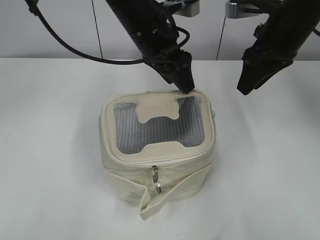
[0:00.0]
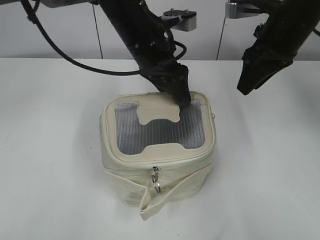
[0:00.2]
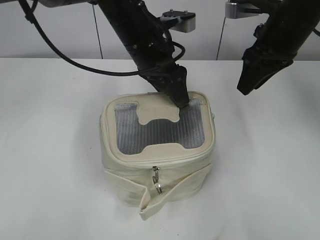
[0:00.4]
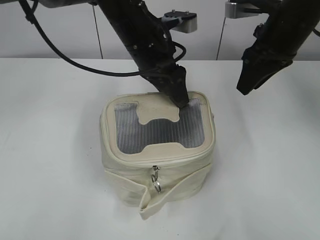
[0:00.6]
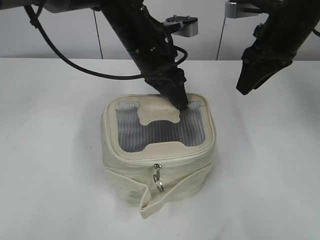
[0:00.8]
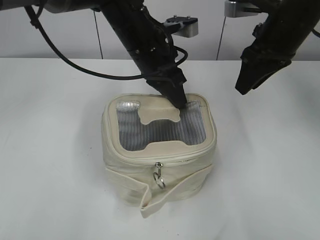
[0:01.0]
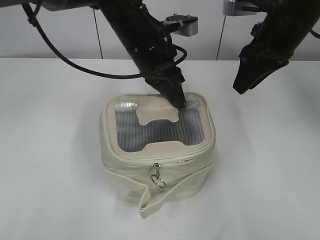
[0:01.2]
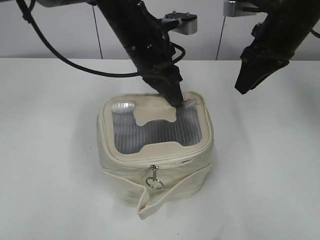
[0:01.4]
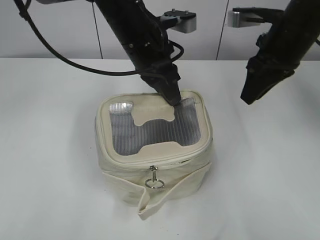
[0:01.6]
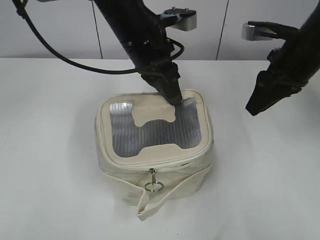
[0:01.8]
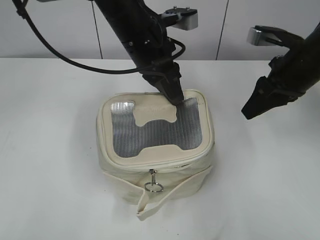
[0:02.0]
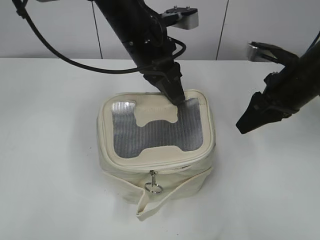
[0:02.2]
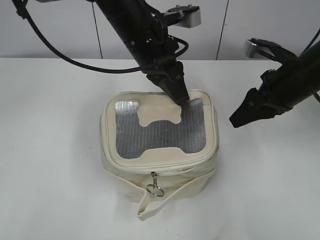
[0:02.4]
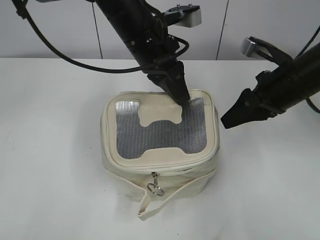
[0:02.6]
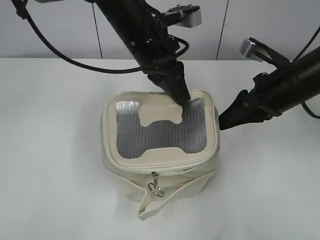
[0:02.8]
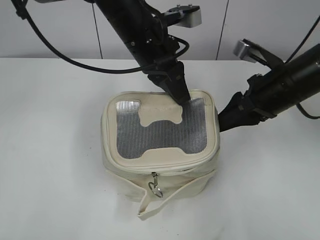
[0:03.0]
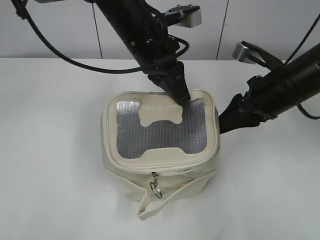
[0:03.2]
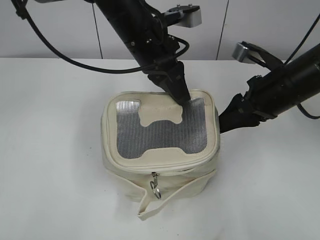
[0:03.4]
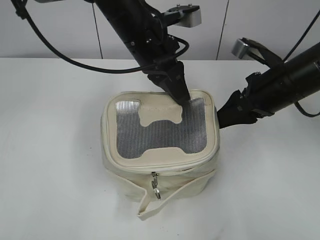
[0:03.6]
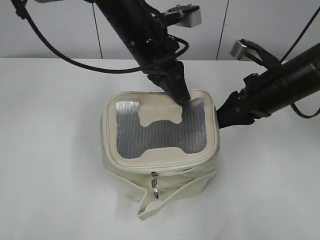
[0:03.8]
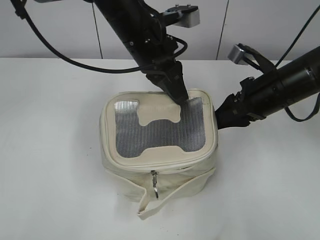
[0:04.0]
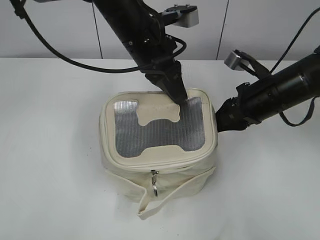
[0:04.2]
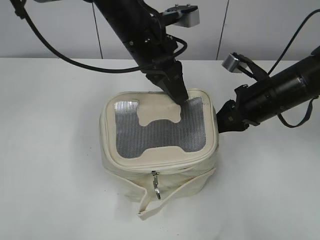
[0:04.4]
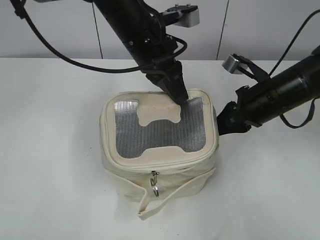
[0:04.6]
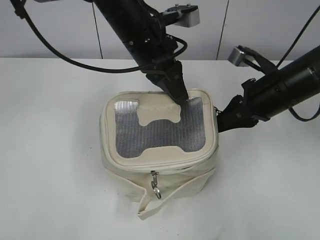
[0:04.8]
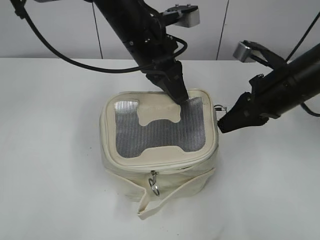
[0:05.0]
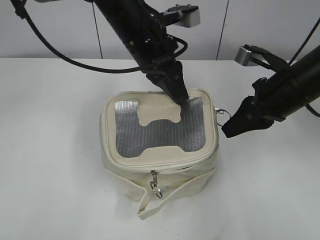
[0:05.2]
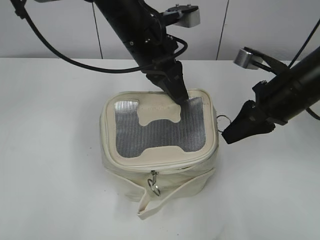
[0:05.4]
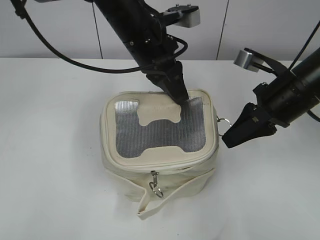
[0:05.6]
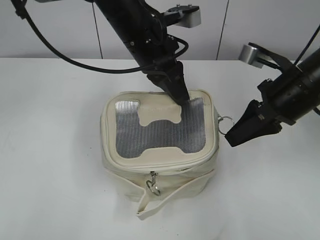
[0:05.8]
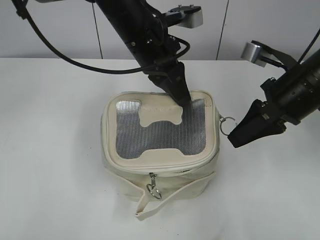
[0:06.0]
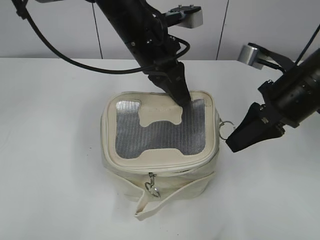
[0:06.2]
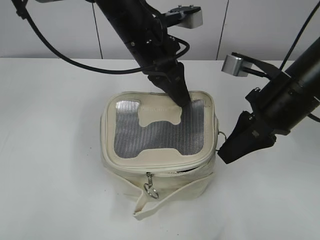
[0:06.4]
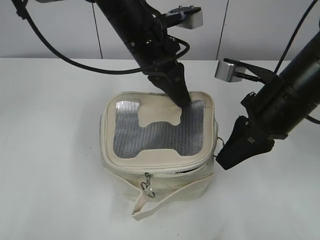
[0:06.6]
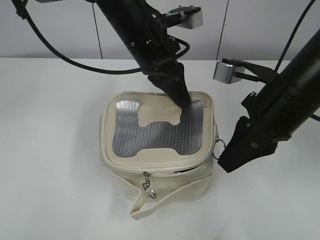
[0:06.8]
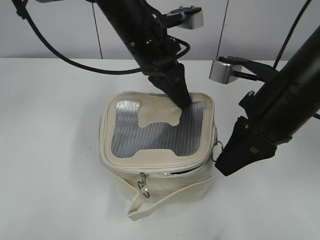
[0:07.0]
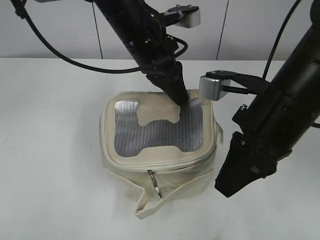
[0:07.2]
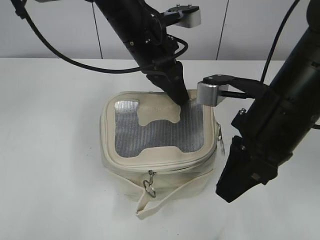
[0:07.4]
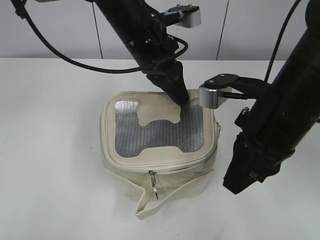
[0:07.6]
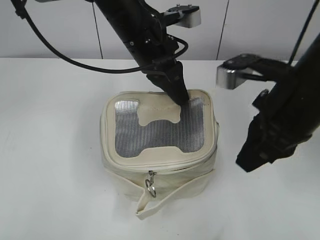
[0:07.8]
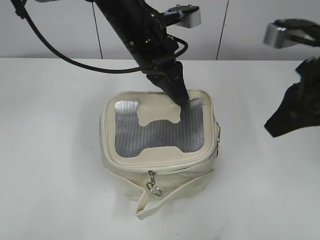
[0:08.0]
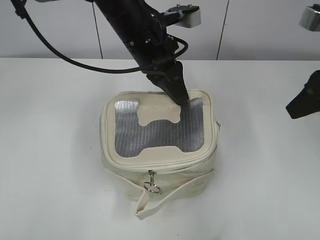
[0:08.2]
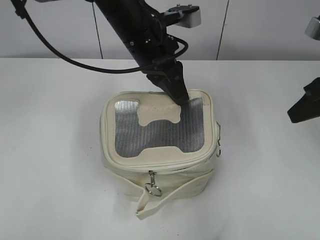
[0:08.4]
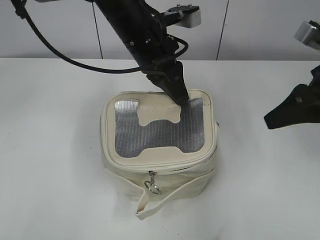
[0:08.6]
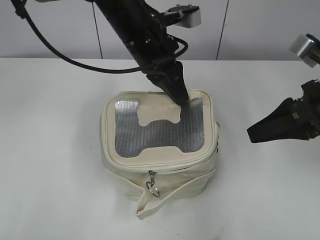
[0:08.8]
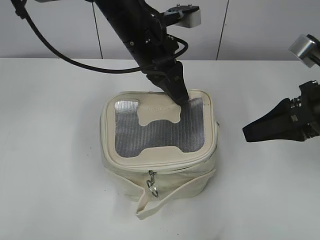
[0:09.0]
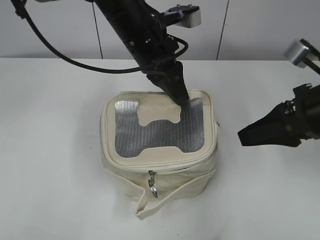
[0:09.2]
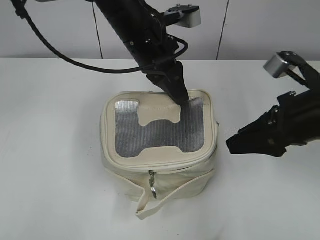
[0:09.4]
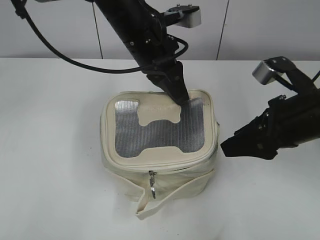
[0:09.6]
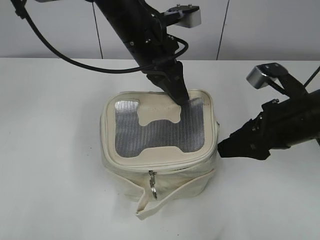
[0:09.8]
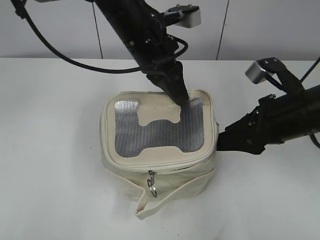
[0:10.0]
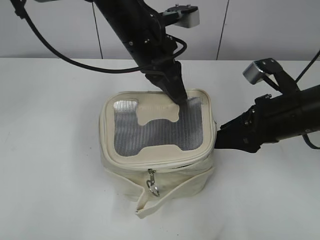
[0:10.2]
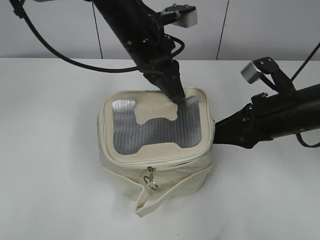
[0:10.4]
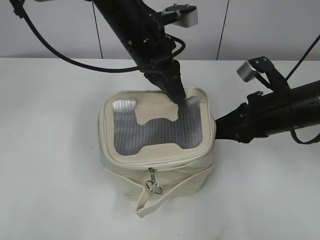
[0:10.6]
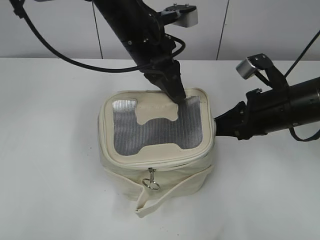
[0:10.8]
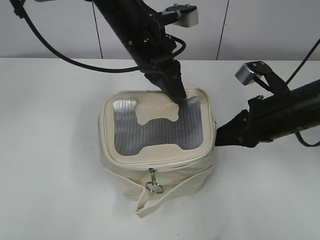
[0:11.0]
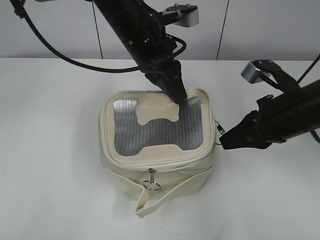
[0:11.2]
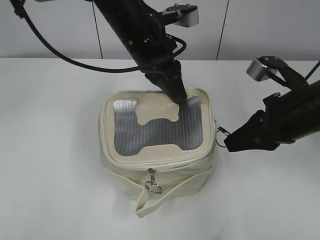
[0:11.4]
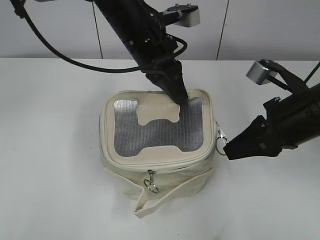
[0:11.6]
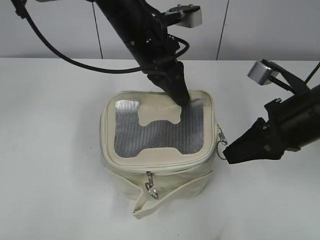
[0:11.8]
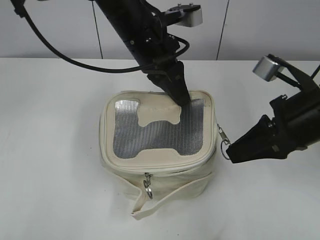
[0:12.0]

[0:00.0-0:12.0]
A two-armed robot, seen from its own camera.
0:00.0 to 0:01.6: The left gripper closes its fingers.
0:01.6 to 0:03.0: The right gripper goes some 5 cm downward.
0:03.0 to 0:04.4: The right gripper closes its fingers.
0:04.4 to 0:06.0: The right gripper moves upward, approximately 5 cm.
0:06.0 to 0:07.6: The right gripper shifts approximately 10 cm backward and to the left.
0:07.6 to 0:09.0: The right gripper shifts approximately 10 cm to the right, and opens up.
0:09.0 to 0:10.4: The right gripper goes roughly 5 cm downward.
0:10.4 to 0:12.0: The right gripper ends up some 5 cm from where it was, and closes its fingers.

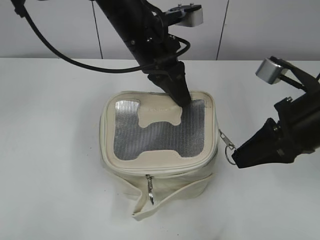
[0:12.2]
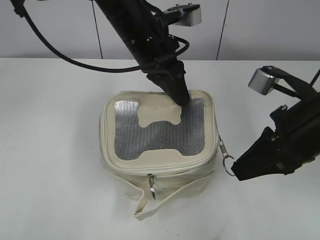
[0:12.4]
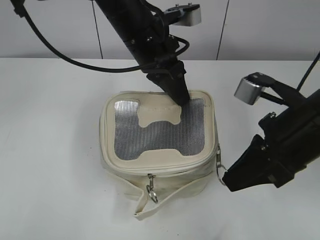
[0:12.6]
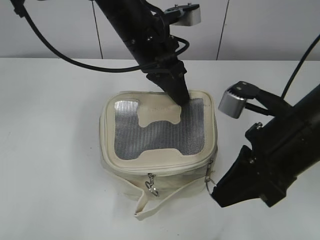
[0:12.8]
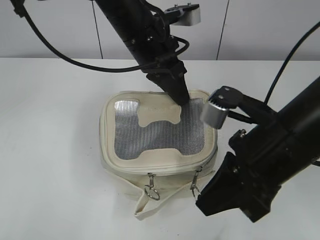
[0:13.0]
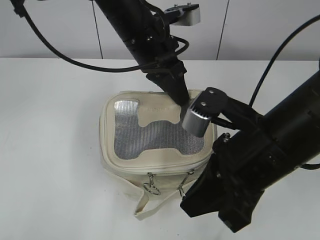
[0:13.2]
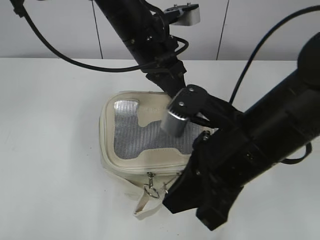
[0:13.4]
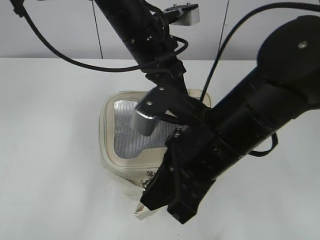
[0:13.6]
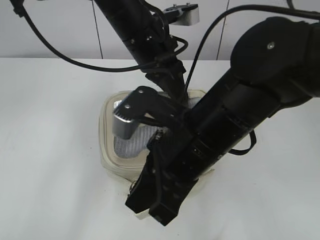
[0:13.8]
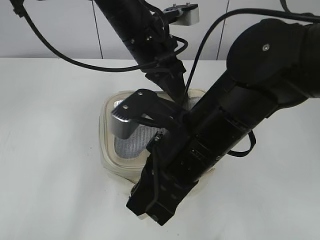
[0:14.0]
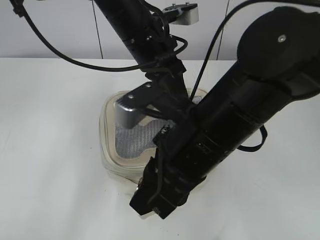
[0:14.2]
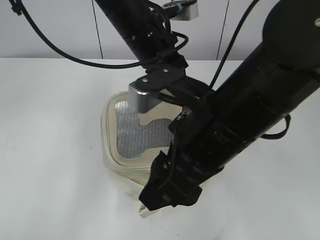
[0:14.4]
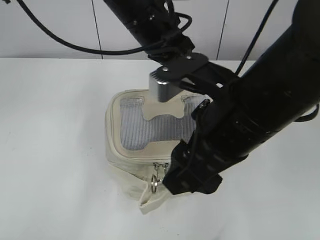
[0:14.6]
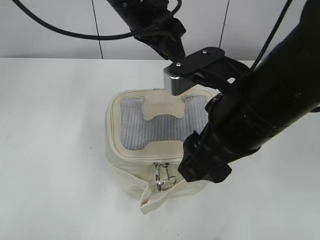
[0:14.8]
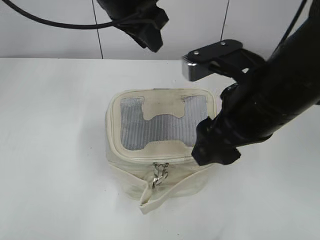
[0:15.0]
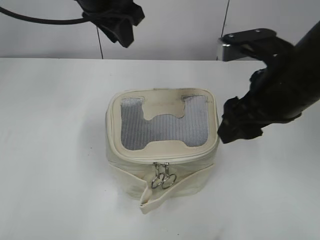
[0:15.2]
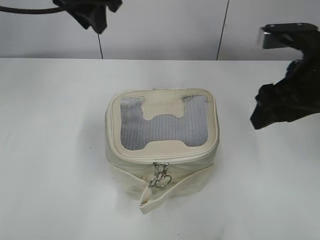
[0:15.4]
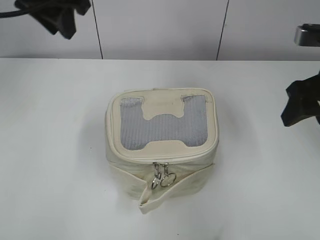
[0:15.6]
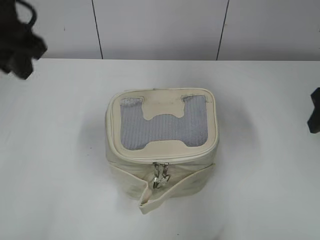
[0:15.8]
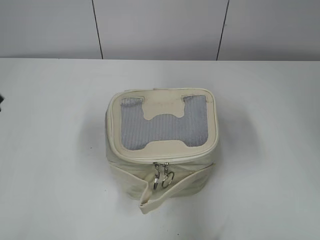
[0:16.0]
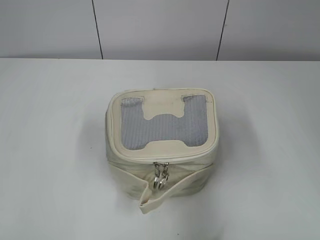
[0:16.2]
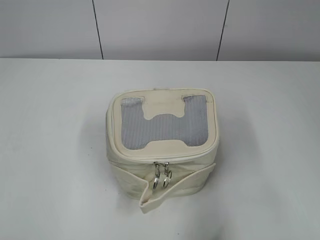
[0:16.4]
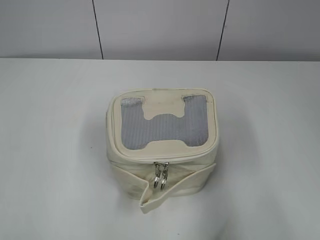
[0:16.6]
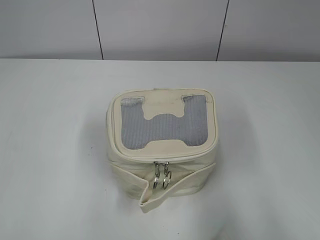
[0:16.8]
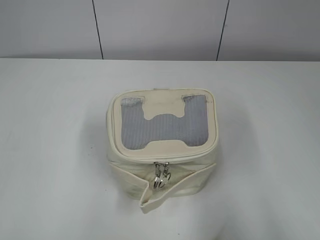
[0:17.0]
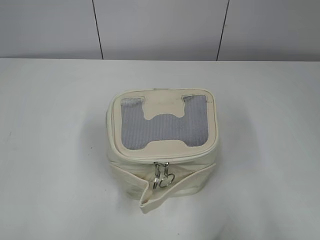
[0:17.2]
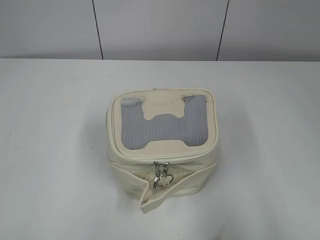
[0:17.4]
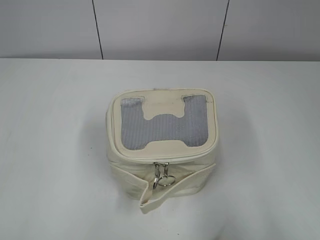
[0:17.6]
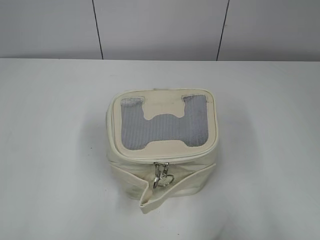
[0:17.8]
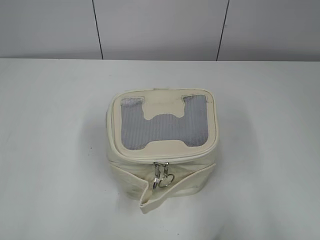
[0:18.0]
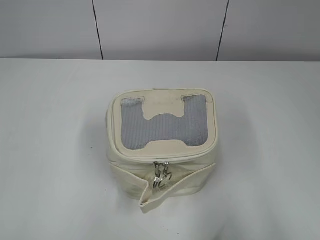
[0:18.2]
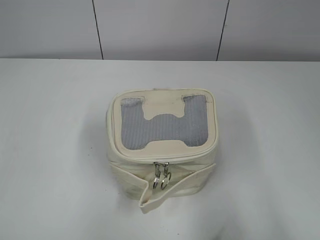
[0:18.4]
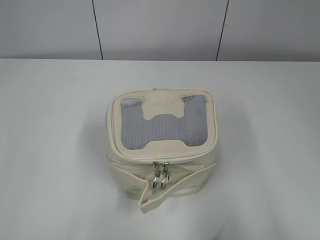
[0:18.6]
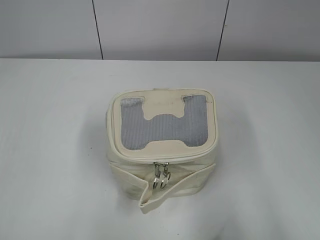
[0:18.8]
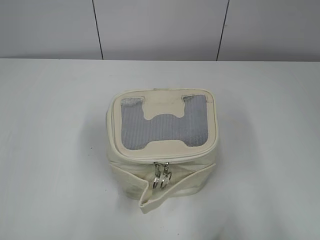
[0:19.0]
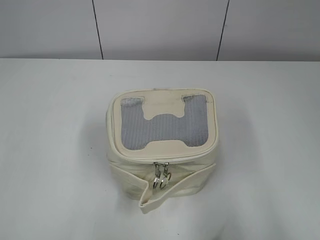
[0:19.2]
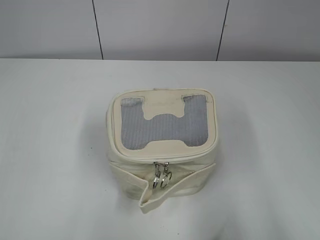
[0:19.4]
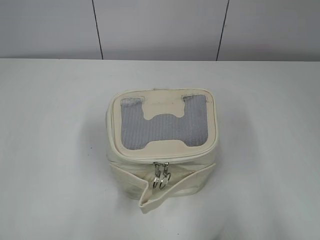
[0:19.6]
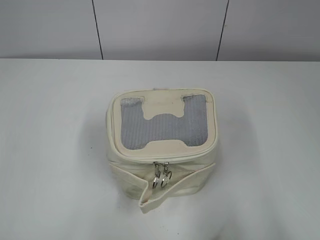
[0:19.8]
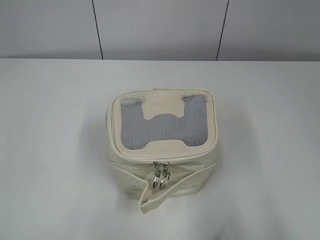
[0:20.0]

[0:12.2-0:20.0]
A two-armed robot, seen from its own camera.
Step, 0:12.2 to 0:14.4: Zip up the bag with your right hand.
0:12.2 to 0:13.8: The right gripper is displaced to the left by about 15 cm.
0:13.8 to 0:15.4: The left gripper travels upward and to the left by roughly 15 cm, and opens, while the right gripper shifts some 15 cm to the right and forward, and opens.
0:15.4 to 0:16.8: The right gripper is displaced backward and to the right by some 25 cm. The left gripper is displaced backward and to the left by about 40 cm.

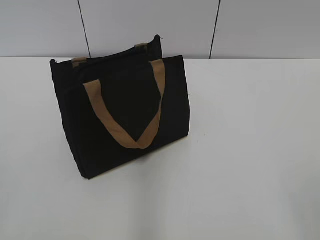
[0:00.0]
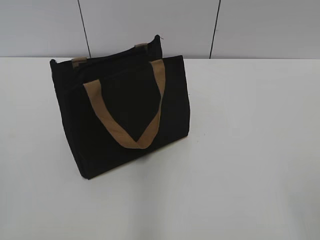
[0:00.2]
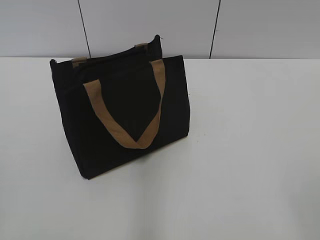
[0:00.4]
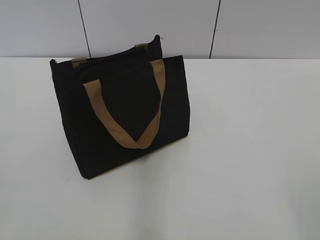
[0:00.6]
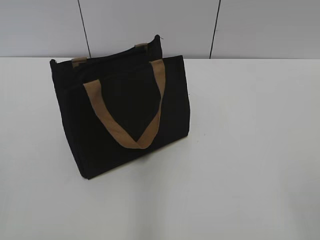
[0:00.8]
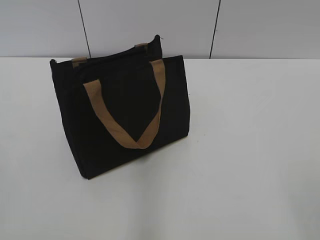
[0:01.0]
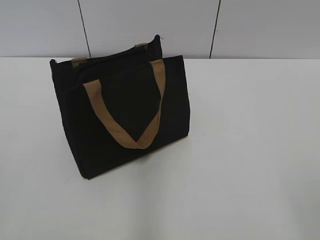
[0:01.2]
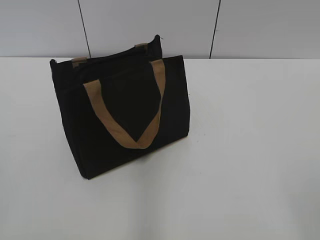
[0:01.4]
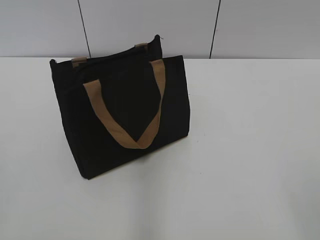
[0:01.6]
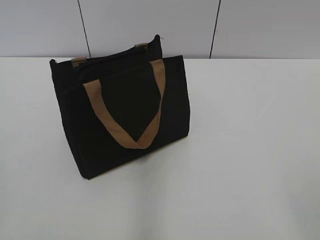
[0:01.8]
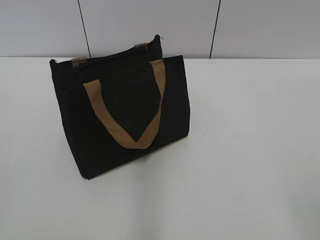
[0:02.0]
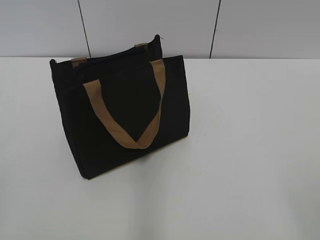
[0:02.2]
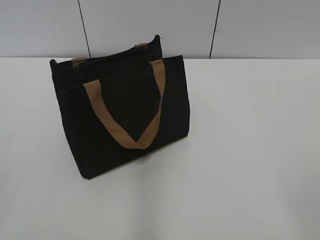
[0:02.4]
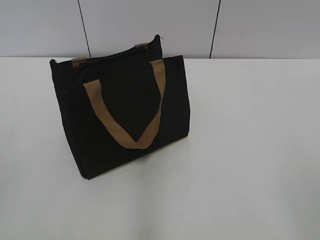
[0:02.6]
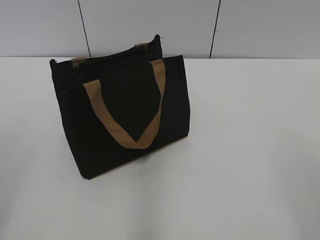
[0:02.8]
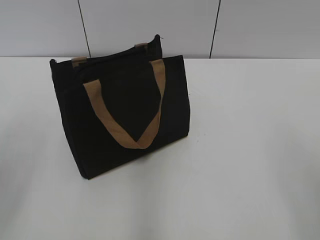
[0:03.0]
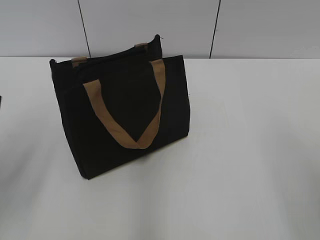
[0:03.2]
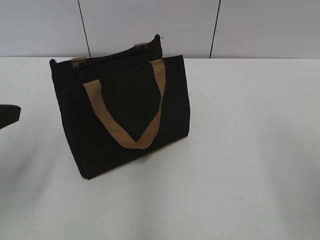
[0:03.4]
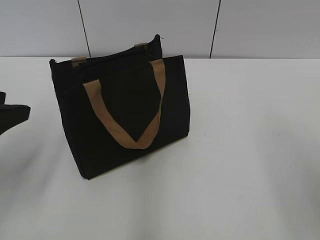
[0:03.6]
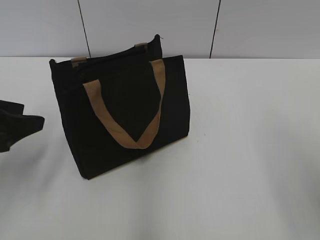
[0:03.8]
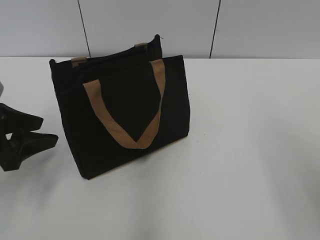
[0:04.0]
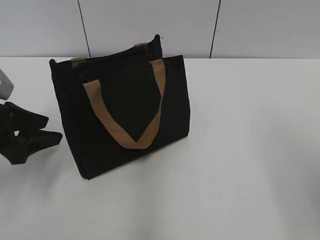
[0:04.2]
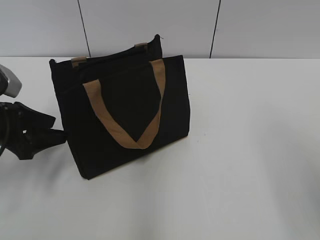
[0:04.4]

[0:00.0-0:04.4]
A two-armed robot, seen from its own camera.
0:03.0 to 0:04.4: The left gripper travels downward and forward by roughly 20 cm.
